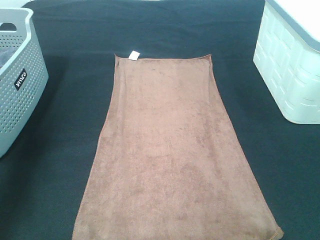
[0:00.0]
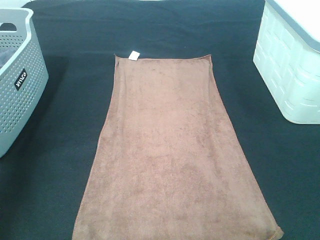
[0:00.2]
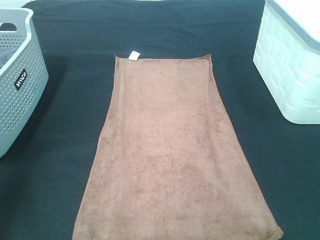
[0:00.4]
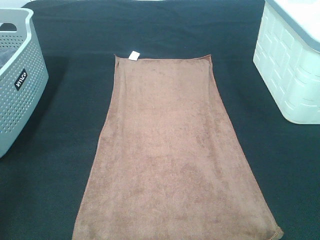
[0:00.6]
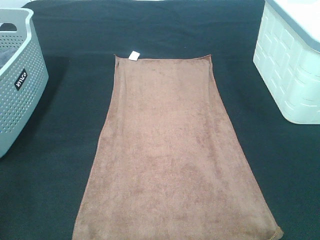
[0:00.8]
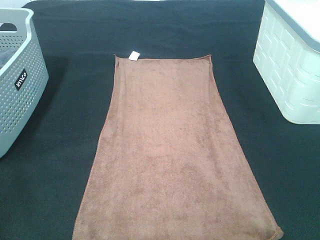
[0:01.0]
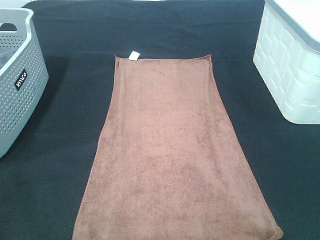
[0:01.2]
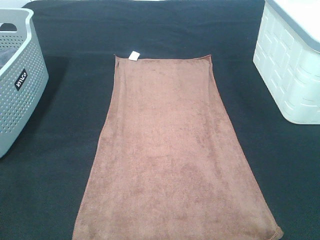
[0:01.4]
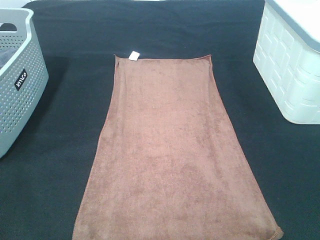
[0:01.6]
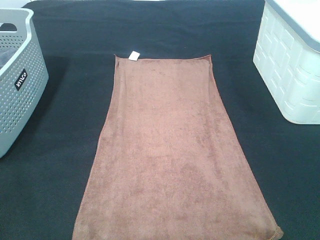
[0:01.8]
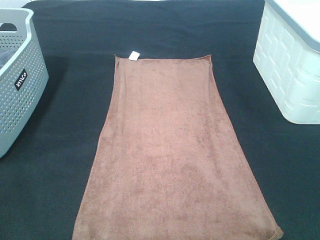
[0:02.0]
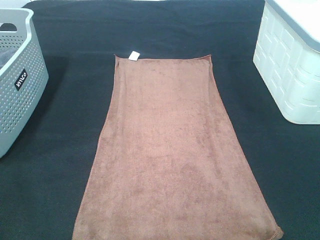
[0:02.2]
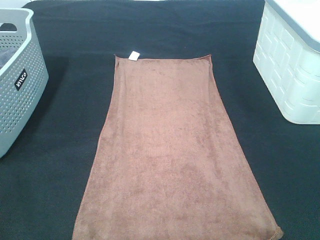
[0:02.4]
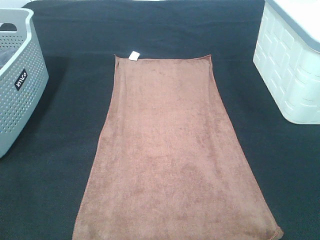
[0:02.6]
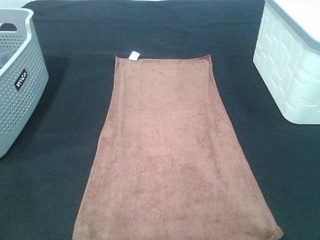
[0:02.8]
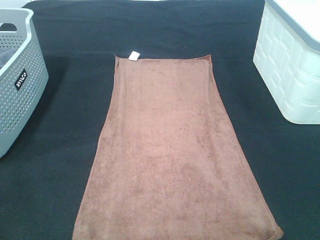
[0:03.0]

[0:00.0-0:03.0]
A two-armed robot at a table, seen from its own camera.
Task of the whole recording: Remove the towel and place it.
0:00.0 to 0:01.6: The left gripper travels backward by some 25 cm.

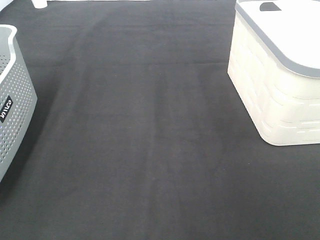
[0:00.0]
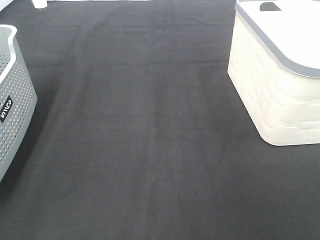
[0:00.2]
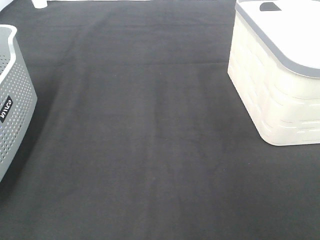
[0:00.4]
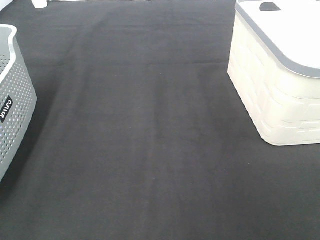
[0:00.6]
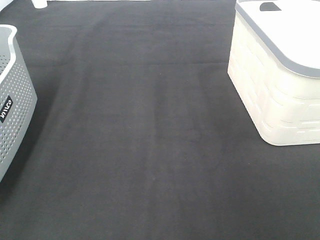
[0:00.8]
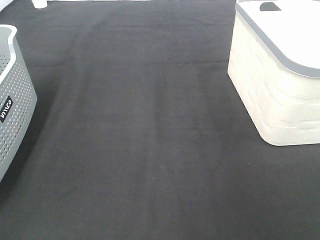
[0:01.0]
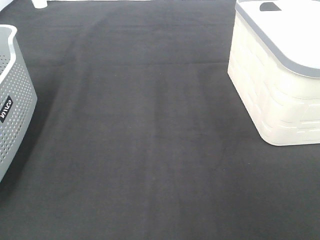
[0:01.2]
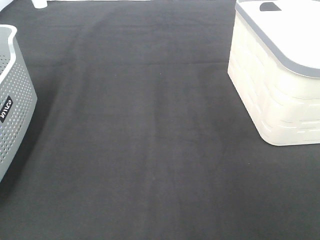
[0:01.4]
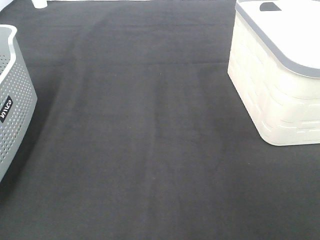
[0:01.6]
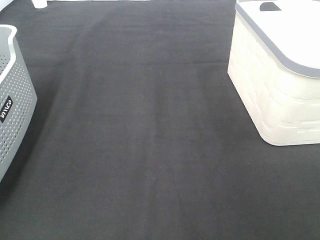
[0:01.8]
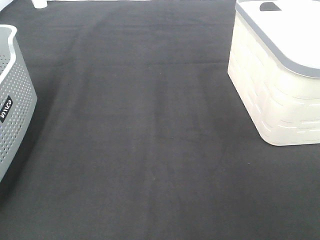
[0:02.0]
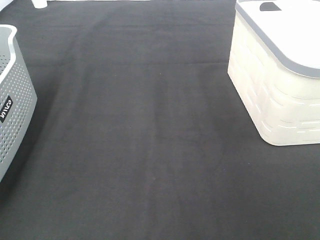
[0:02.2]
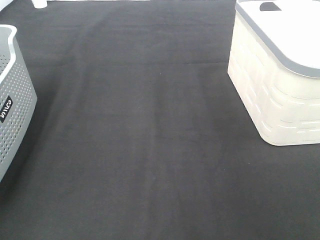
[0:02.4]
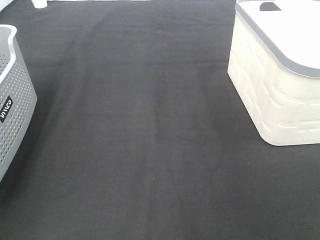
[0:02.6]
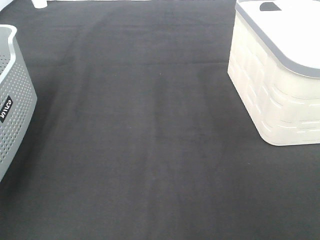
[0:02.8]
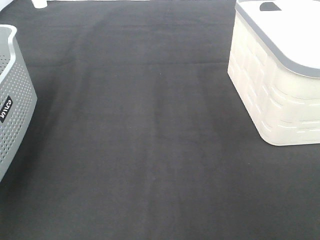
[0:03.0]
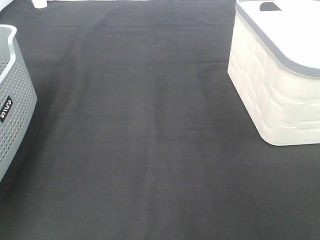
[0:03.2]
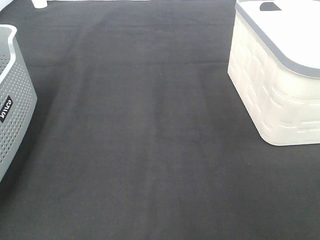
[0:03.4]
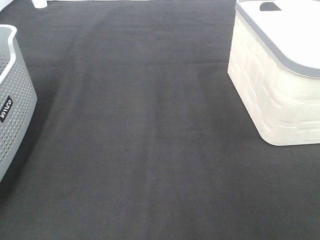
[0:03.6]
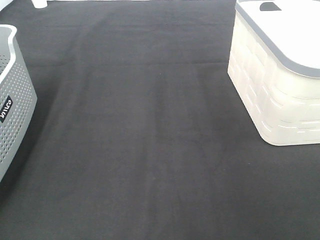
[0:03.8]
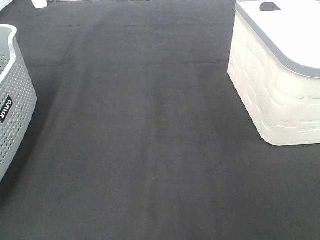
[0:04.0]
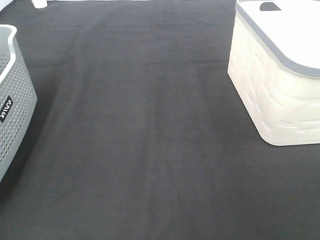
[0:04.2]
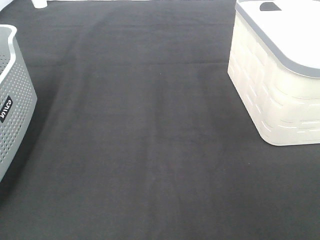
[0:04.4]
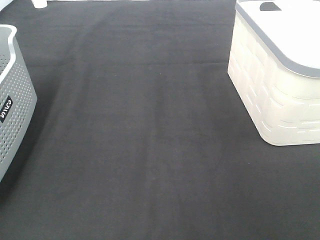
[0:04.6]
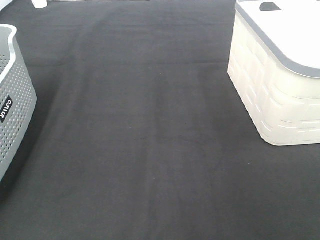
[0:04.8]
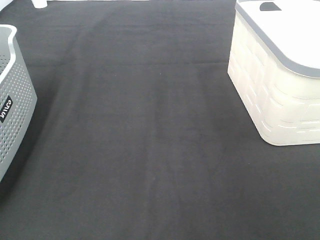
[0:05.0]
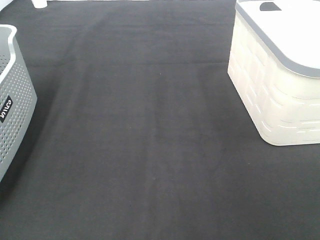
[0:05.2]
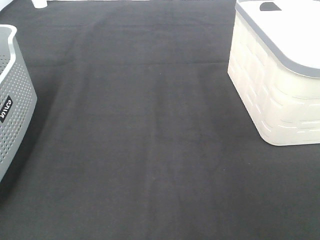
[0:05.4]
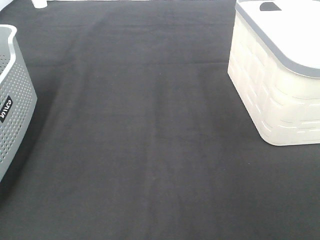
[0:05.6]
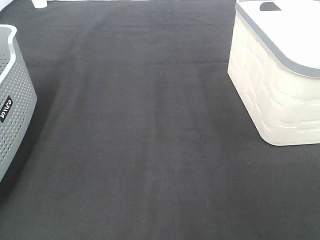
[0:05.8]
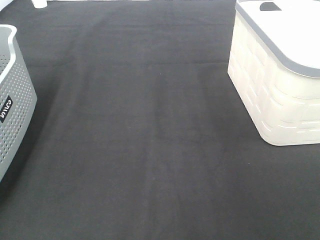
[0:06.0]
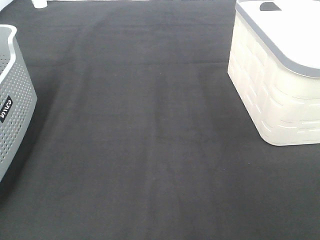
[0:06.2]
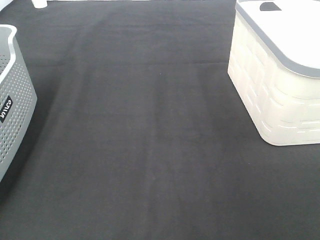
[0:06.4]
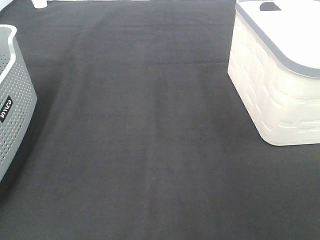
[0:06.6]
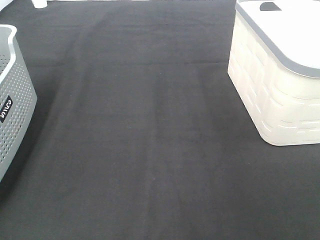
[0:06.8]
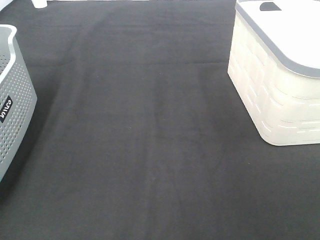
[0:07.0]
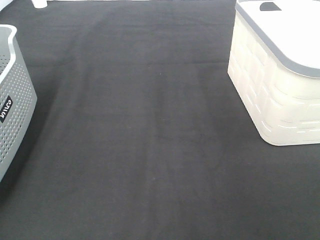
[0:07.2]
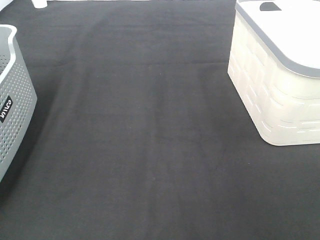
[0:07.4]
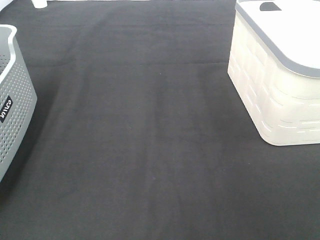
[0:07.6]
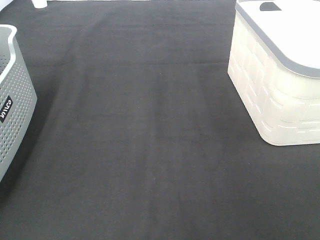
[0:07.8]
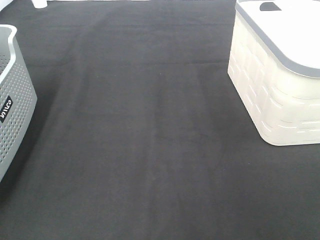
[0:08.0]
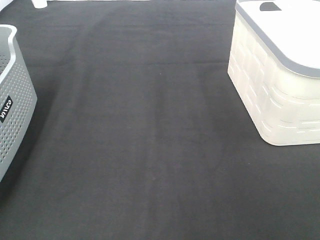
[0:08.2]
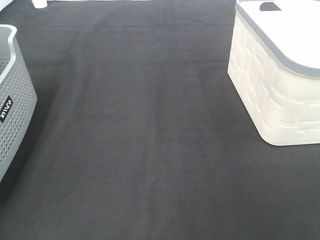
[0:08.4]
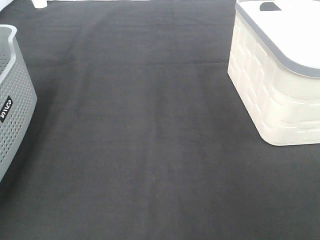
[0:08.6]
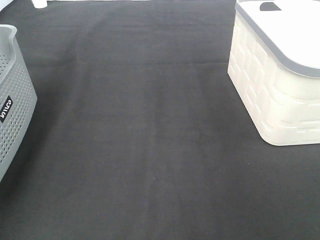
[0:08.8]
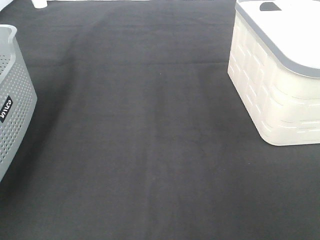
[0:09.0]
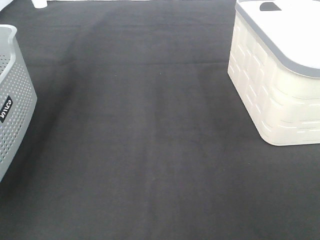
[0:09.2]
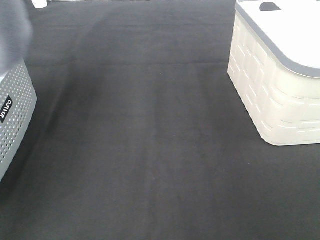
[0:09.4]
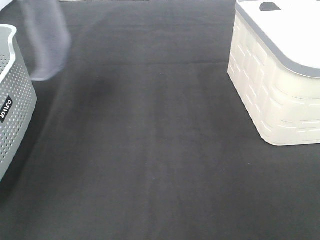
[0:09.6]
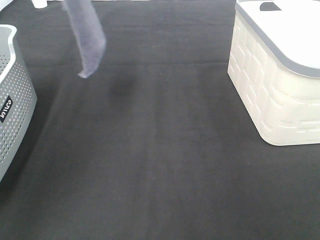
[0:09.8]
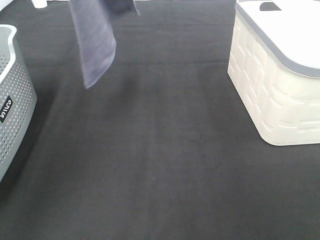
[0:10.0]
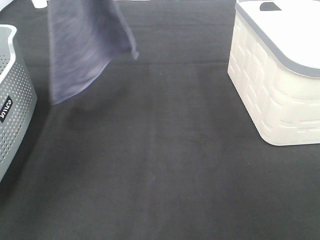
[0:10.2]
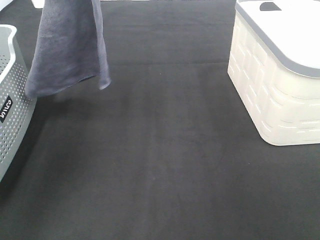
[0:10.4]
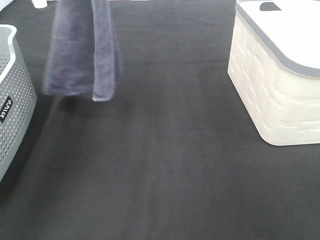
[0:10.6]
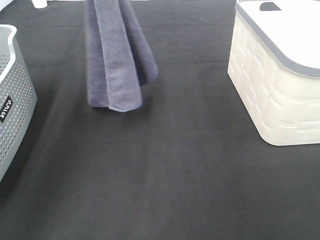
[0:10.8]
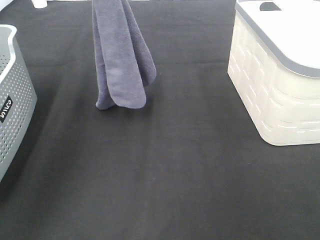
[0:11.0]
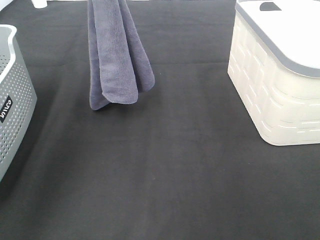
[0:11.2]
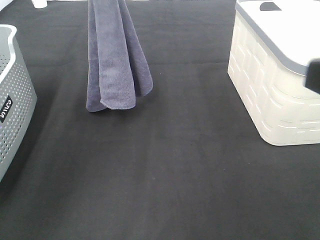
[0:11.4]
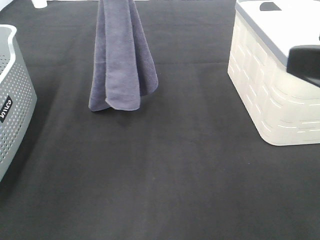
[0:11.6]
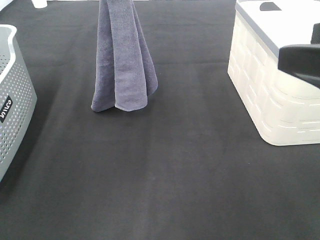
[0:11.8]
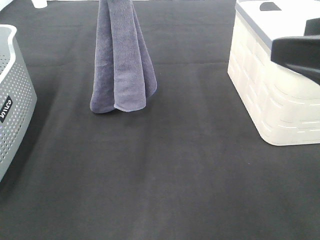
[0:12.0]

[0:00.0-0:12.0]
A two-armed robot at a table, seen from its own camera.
Task of the whole recording: Remove the towel and place it.
0:01.6 to 0:03.0: The left gripper moves forward, about 20 cm.
0:07.6 to 0:09.0: The left gripper shifts about 25 cm upward.
0:09.0 to 0:10.4: The left gripper goes roughly 20 cm to the right, downward and forward.
0:10.4 to 0:12.0: The left gripper shifts roughly 10 cm to the right; the right gripper travels forward by roughly 15 cm.

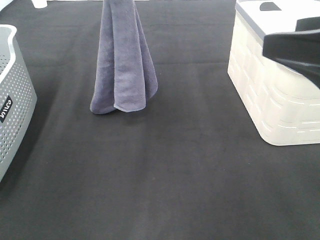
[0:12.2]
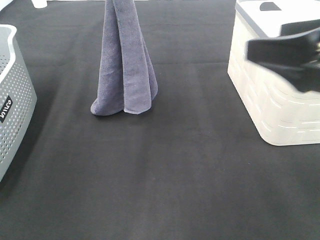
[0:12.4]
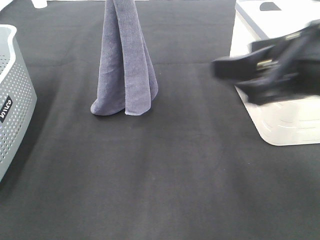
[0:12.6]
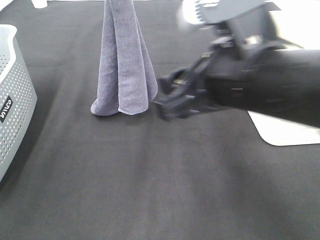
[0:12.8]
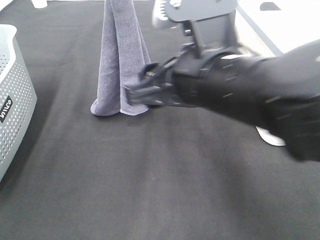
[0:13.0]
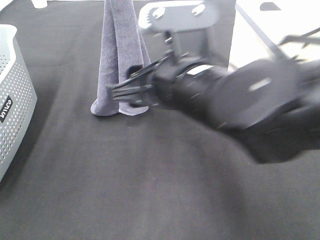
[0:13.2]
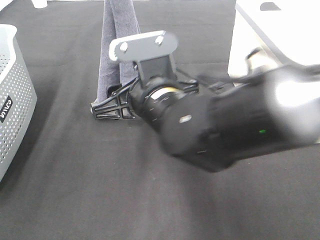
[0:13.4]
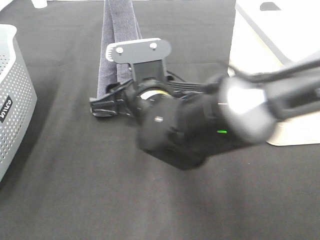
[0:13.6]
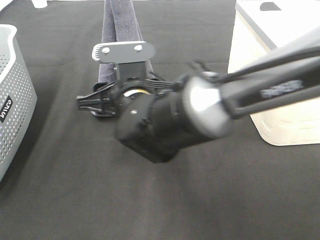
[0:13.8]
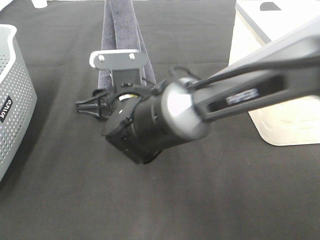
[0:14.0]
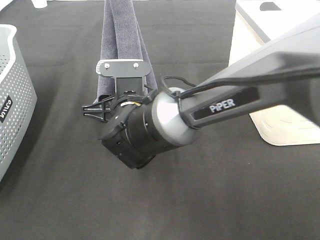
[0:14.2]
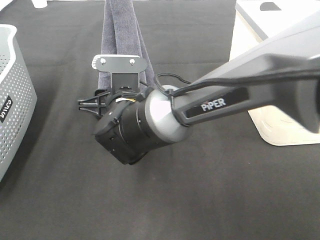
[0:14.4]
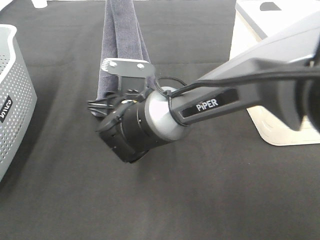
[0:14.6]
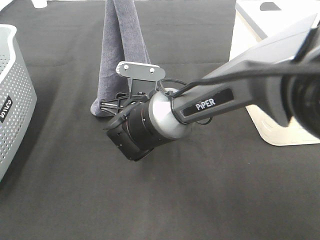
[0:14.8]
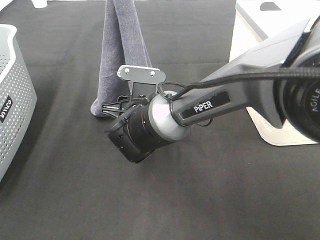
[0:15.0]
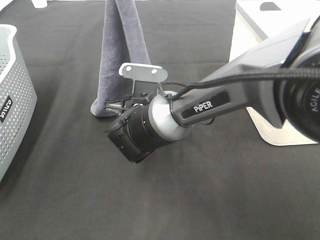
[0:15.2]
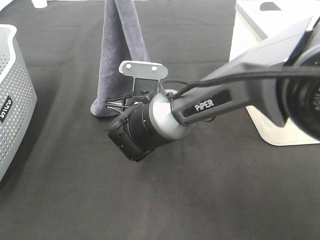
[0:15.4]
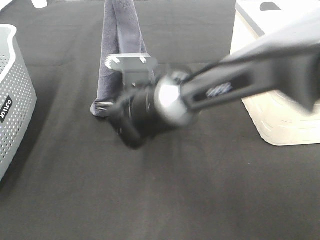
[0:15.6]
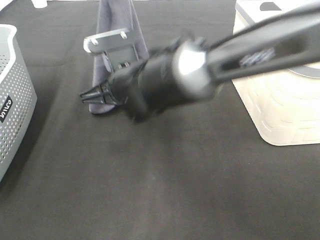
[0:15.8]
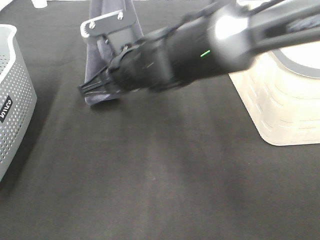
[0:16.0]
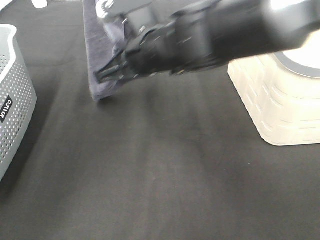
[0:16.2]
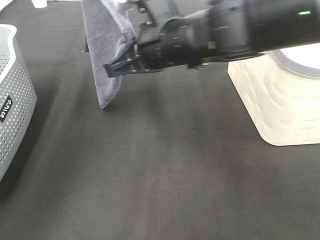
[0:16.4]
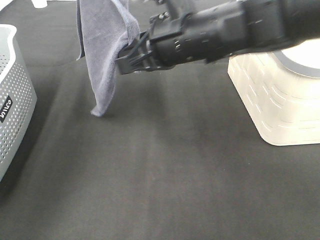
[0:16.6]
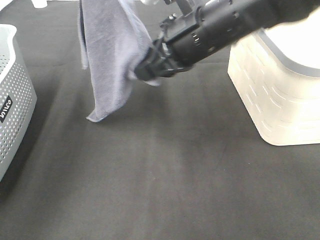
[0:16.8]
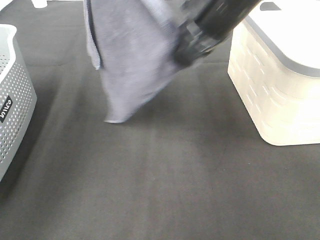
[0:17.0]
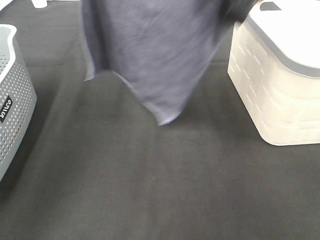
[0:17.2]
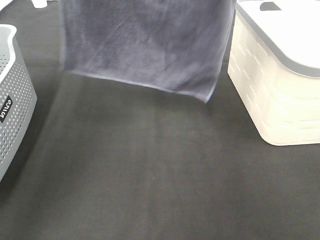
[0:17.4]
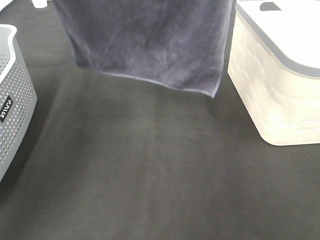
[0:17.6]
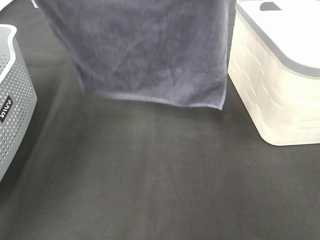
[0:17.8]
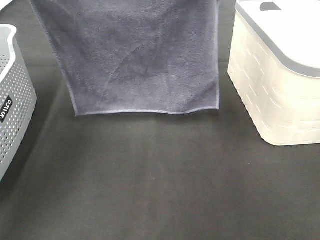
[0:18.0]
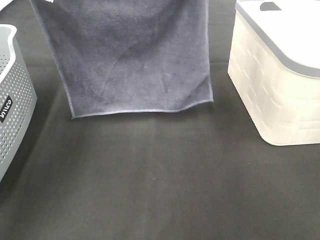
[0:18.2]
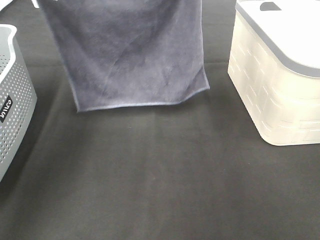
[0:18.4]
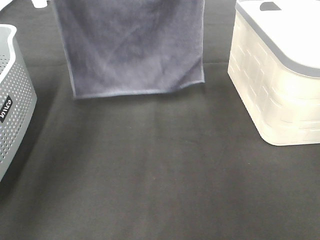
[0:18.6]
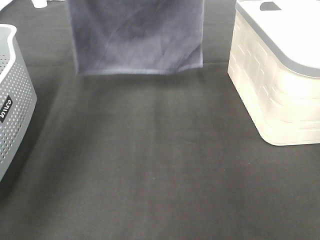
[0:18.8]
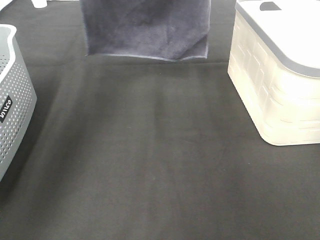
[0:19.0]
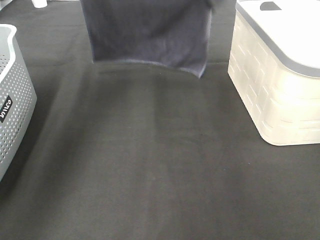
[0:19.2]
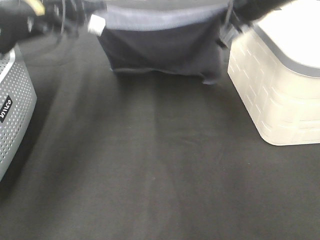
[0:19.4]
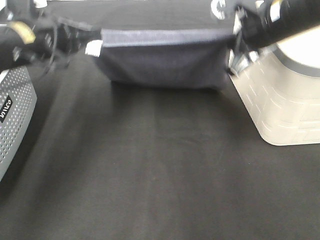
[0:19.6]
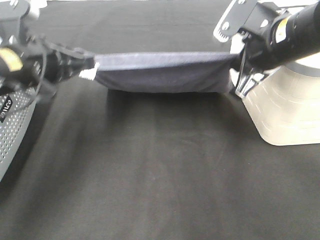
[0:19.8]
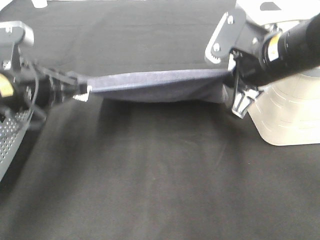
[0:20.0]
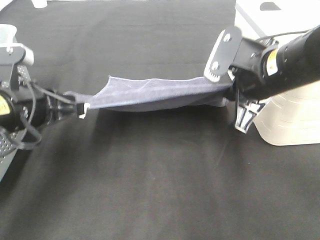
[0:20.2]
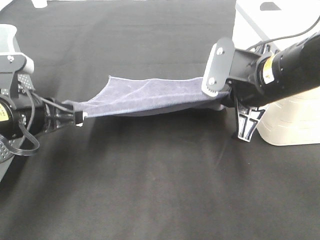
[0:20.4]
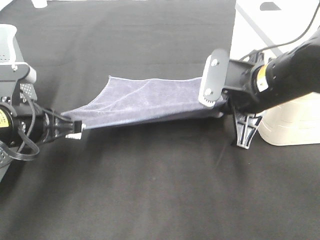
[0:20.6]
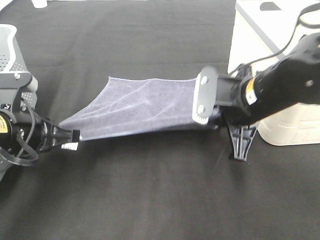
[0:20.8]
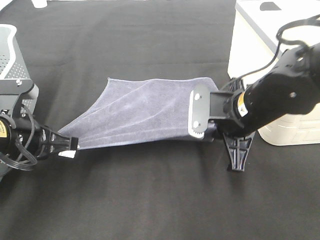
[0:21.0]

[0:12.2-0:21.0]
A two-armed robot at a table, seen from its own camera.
Task of the whole recording: Remove the towel and place it.
Step, 0:14.0 to 0:17.2: Left hand: spread the grey towel flat on the table.
Step, 0:14.0 to 0:17.6: Right hand: spread the grey towel flat on the table.
0:12.2 to 0:13.6: The right gripper goes approximately 30 cm to the left, downward and forward.
0:13.6 to 0:15.2: The right gripper moves downward and forward, approximately 10 cm, and closes its fingers.
0:15.2 to 0:16.6: The left gripper travels to the left and upward by some 10 cm. Meanwhile the right gripper moves upward and to the right, about 15 cm.
0:16.6 to 0:18.0: The right gripper moves upward, roughly 15 cm, while the left gripper is displaced downward, backward and to the left by roughly 15 cm.
0:18.0 to 0:19.6: The left gripper moves downward, roughly 10 cm. The right gripper moves downward and to the right, some 15 cm.
0:19.6 to 0:21.0: The right gripper moves downward and backward, about 15 cm. Meanwhile the left gripper moves backward and downward, approximately 15 cm.
